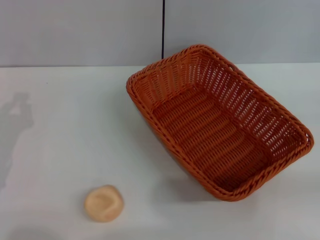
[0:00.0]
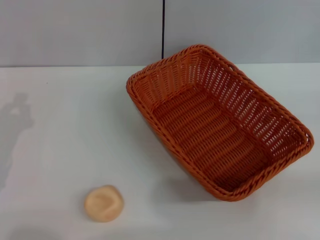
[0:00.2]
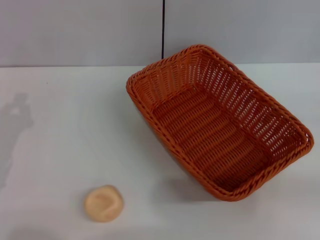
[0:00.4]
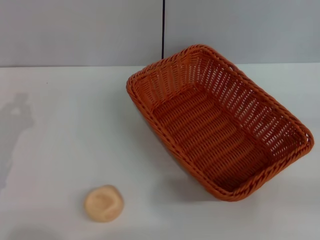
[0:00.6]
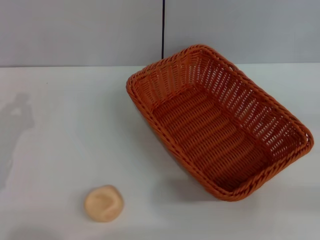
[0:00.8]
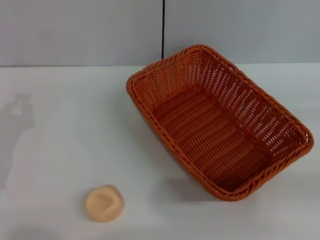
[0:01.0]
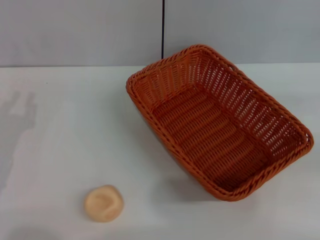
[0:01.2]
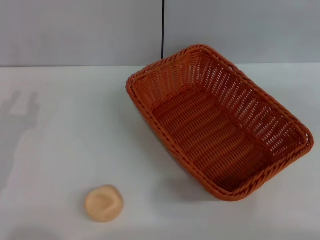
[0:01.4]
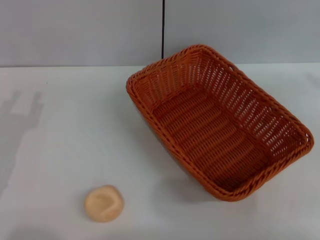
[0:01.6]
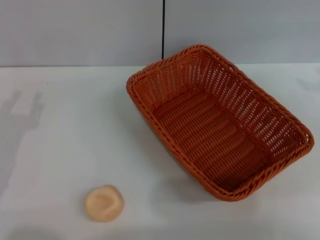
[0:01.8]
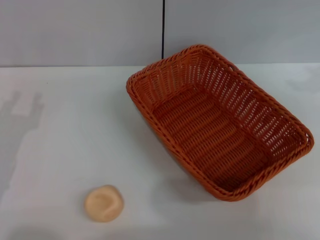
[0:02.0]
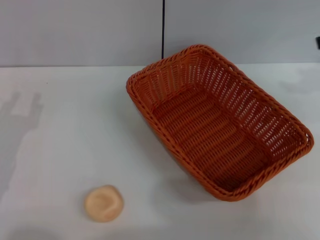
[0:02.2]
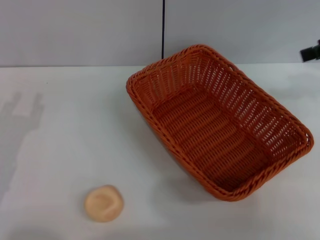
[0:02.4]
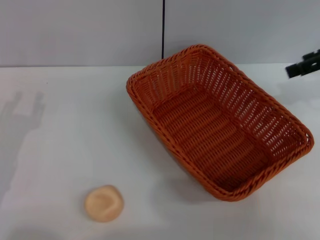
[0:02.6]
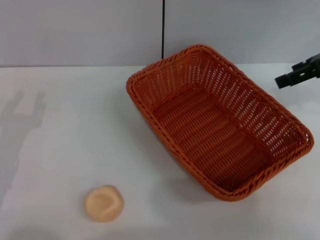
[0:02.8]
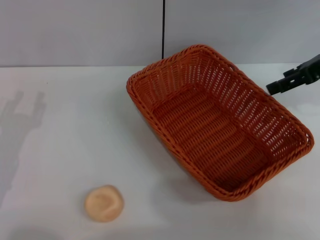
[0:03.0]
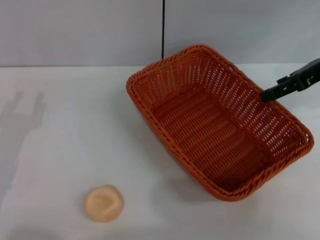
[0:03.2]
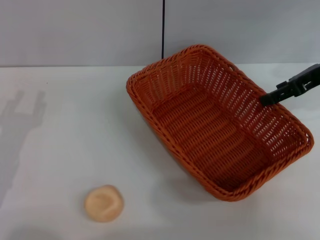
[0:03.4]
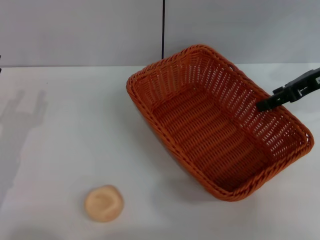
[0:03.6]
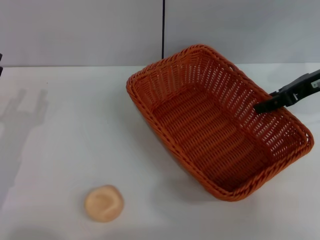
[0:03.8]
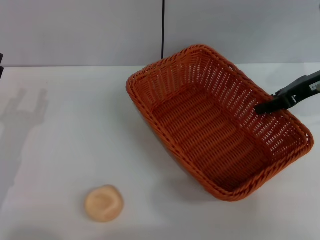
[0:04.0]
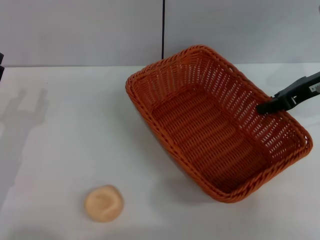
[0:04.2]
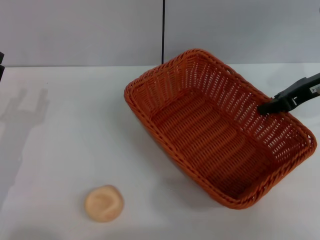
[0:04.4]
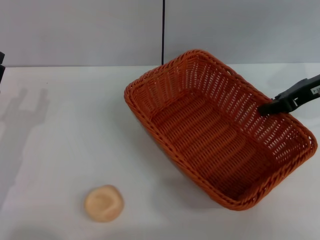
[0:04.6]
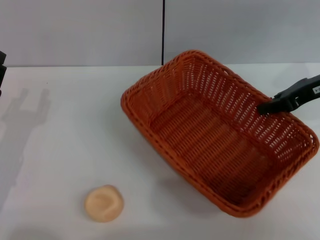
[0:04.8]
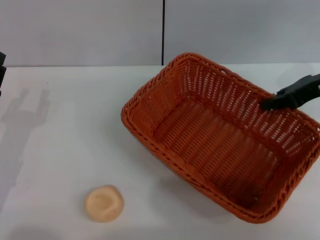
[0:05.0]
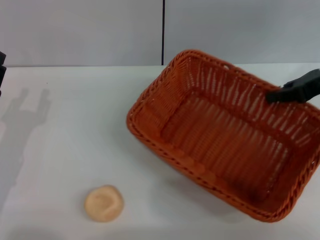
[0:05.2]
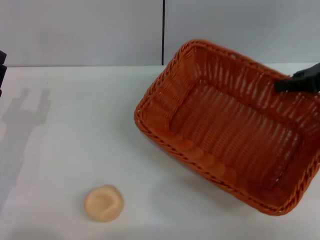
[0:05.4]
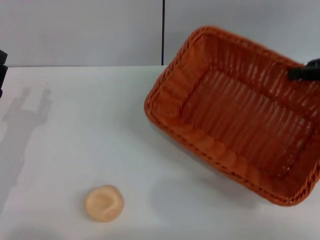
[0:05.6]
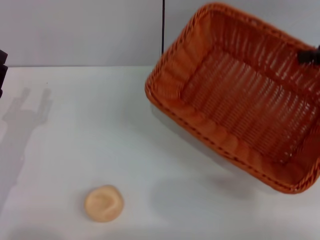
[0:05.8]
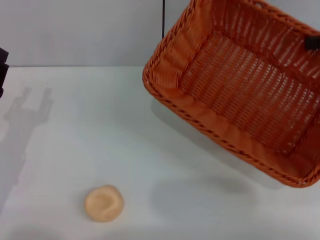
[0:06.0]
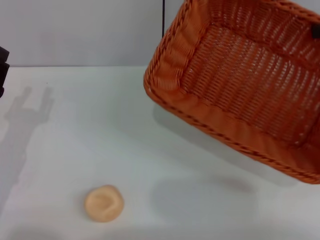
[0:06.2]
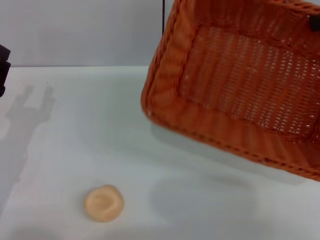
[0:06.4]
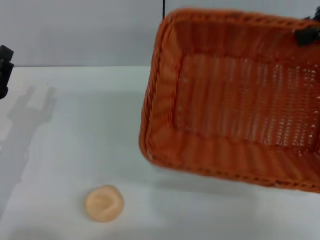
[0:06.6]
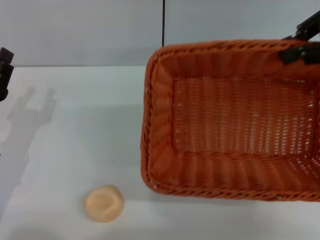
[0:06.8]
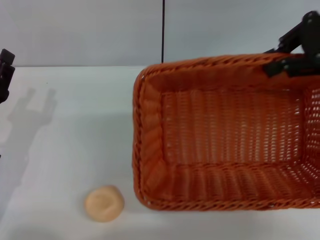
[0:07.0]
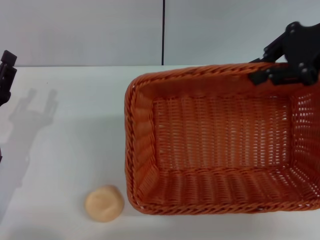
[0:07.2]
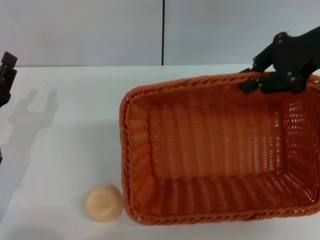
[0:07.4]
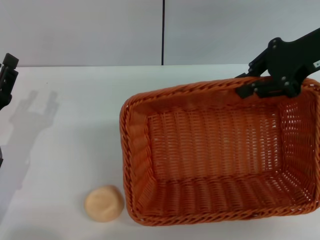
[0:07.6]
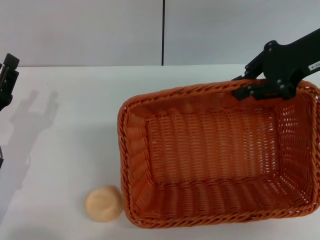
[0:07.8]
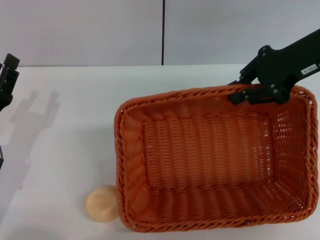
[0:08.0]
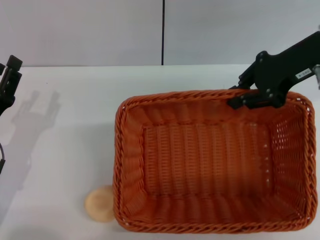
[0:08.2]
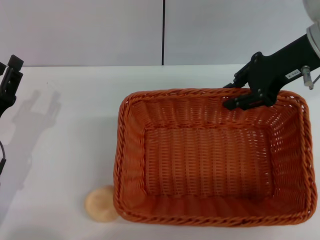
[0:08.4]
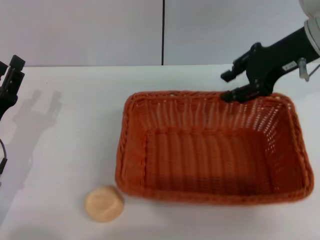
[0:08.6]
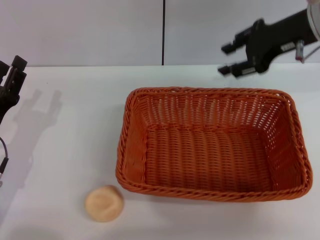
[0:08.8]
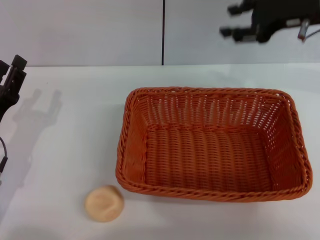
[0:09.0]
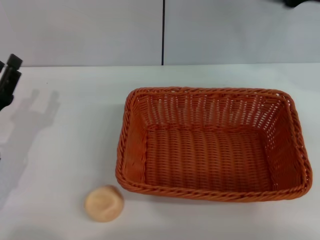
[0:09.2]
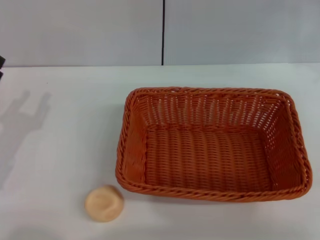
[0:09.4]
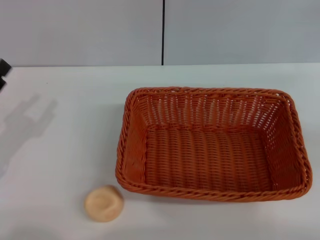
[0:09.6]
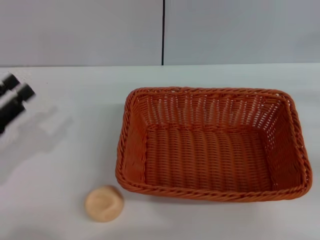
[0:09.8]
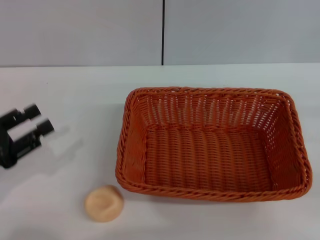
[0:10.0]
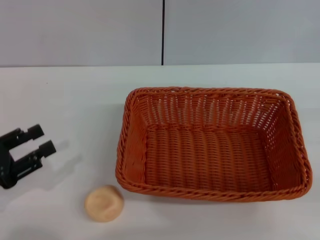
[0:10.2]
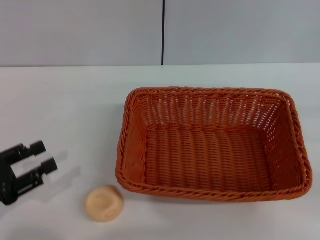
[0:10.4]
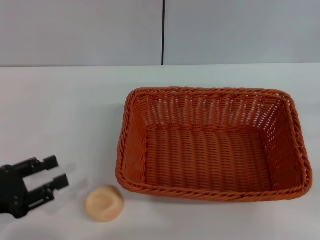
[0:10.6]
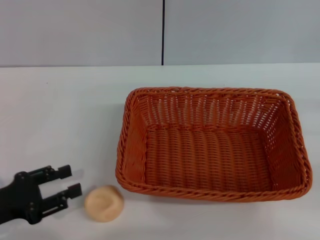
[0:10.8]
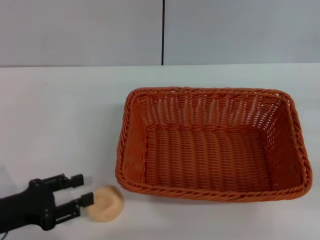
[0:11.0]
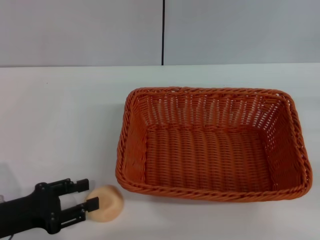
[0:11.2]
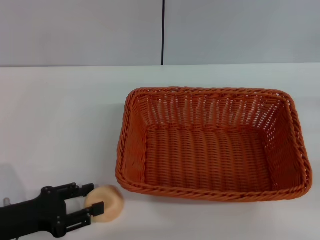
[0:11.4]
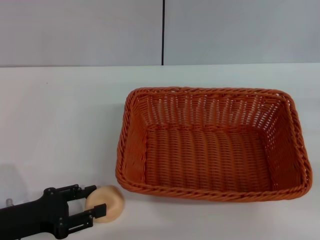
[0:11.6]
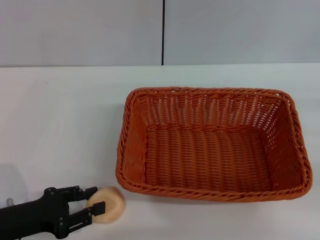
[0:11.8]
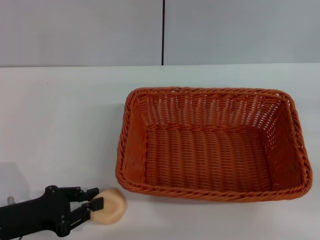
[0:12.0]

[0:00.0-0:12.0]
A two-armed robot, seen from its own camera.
Step, 0:00.0 to 0:08.6: Move the basket to the center of view with the right gripper.
0:01.6 to 0:03.0: The right gripper shifts roughly 15 cm to the left, forward and downward.
0:03.0 to 0:04.4: The right gripper closes its fingers.
0:04.4 to 0:06.0: The right gripper shifts approximately 10 cm to the right and upward.
0:06.0 to 0:07.6: The right gripper goes about 10 cm to the left.
0:07.6 to 0:09.0: The right gripper opens.
0:09.0 to 0:10.4: The left gripper heads to the left and backward, covering some 10 cm; the right gripper moves to the right, backward and downward, roughly 30 cm.
0:10.4 to 0:12.0: The left gripper is displaced to the right by some 5 cm.

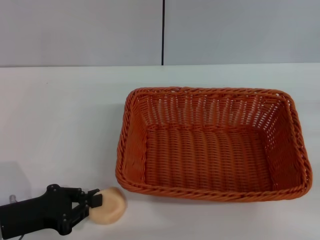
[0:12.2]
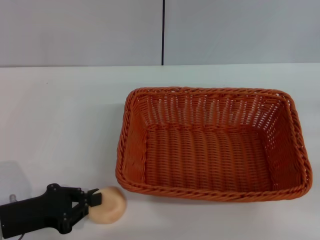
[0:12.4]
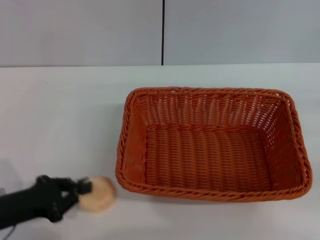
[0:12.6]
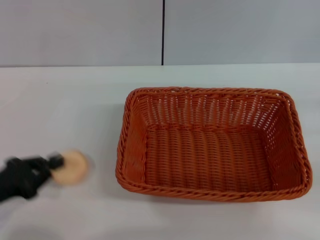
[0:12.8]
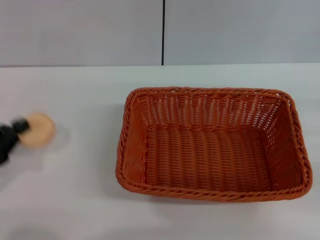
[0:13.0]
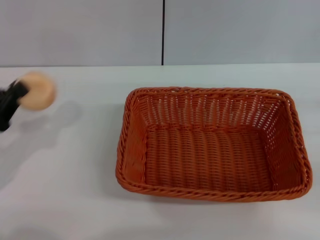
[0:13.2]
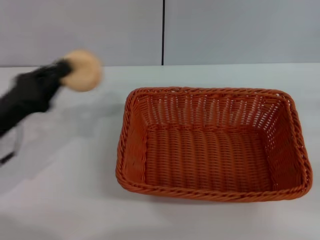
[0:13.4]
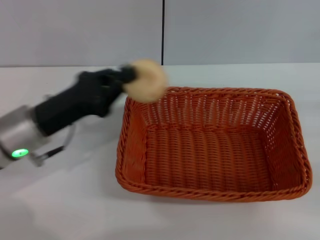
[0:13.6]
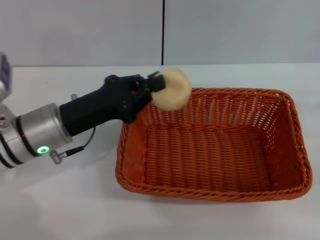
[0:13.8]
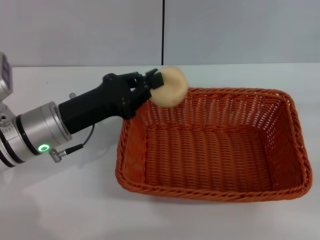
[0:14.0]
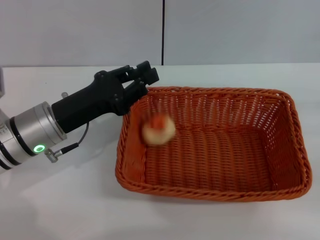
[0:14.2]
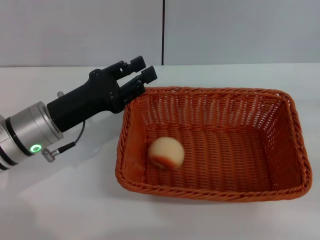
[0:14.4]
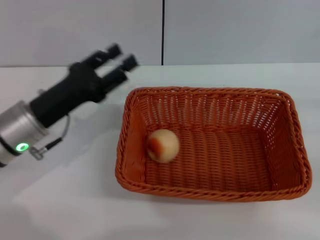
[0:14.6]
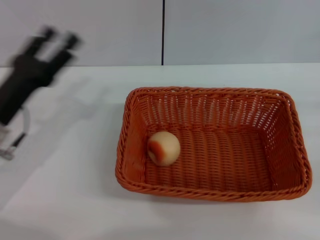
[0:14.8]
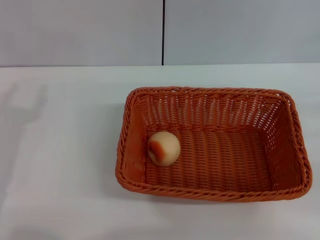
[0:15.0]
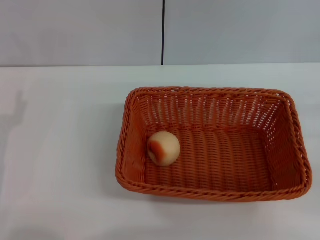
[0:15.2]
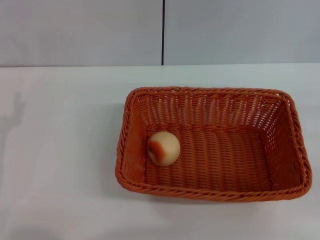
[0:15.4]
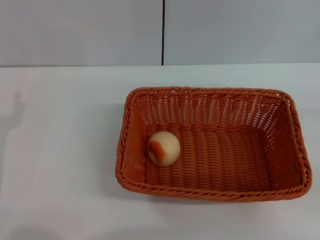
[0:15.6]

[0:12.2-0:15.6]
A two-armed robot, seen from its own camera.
Step, 0:13.4 to 0:14.2: Place the egg yolk pastry into the basket with the left gripper.
0:12.2 to 0:13.8: The left gripper is displaced forward, to the right and upward by some 15 cm.
0:13.8 to 0:15.6: The left gripper travels to the left and backward by approximately 15 cm, and opens up.

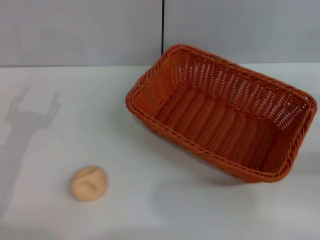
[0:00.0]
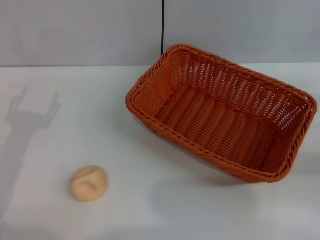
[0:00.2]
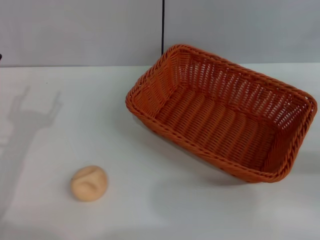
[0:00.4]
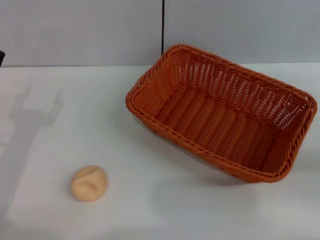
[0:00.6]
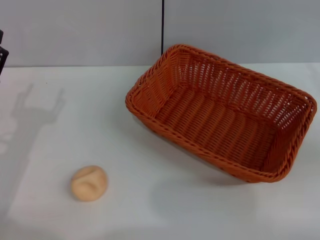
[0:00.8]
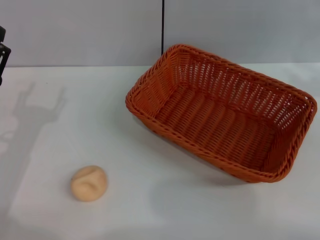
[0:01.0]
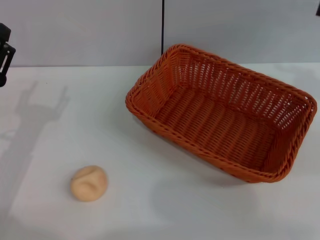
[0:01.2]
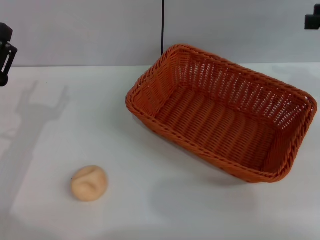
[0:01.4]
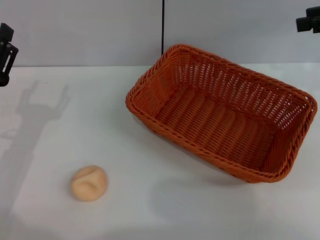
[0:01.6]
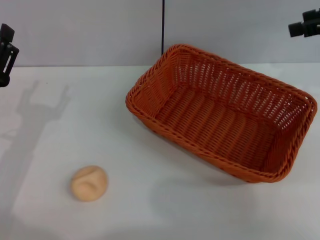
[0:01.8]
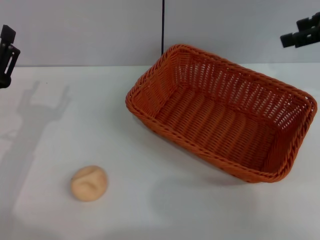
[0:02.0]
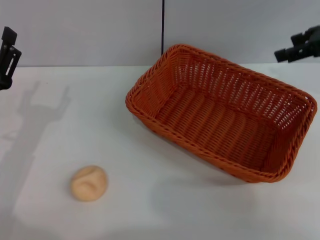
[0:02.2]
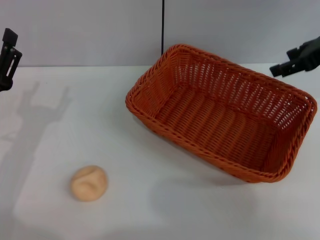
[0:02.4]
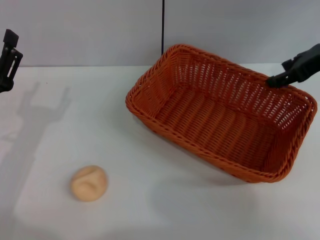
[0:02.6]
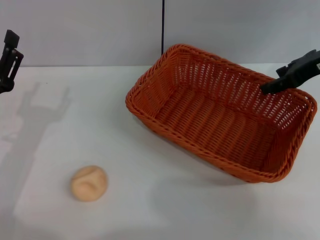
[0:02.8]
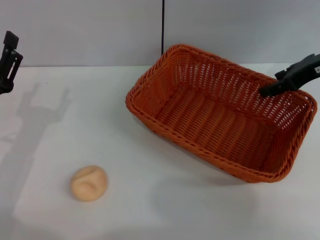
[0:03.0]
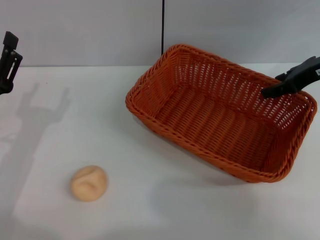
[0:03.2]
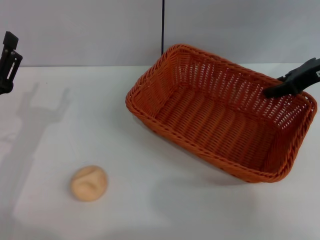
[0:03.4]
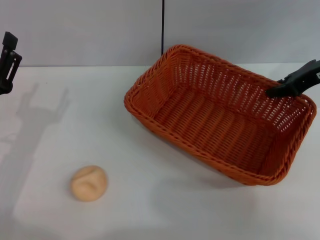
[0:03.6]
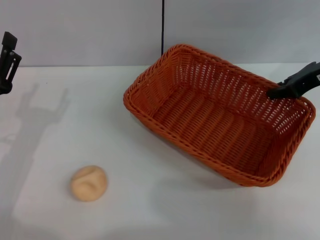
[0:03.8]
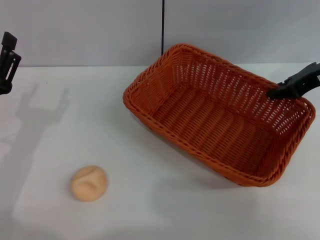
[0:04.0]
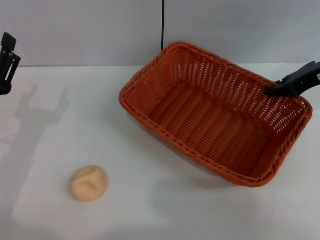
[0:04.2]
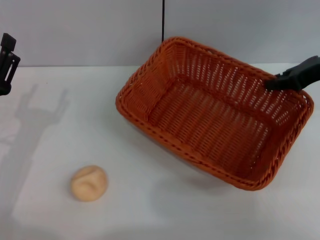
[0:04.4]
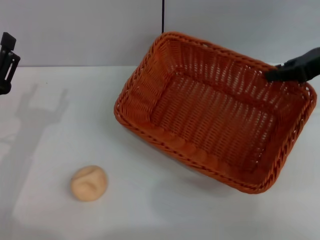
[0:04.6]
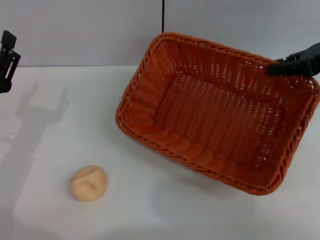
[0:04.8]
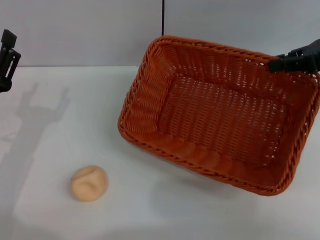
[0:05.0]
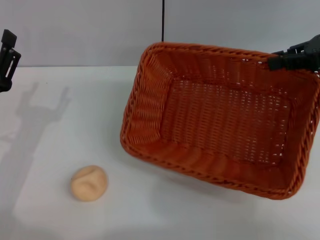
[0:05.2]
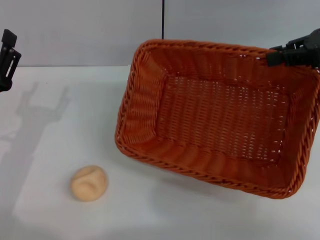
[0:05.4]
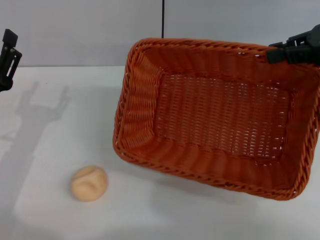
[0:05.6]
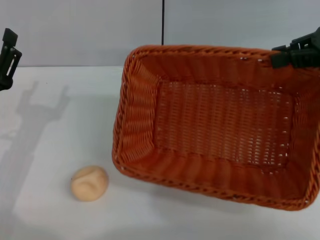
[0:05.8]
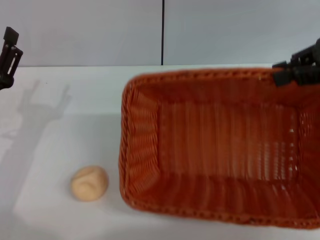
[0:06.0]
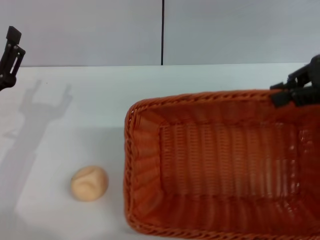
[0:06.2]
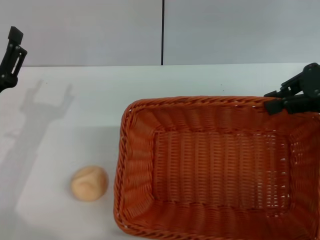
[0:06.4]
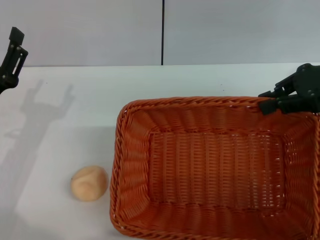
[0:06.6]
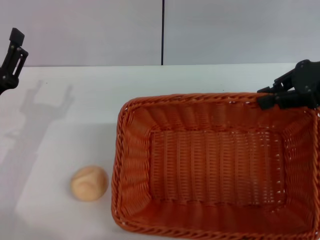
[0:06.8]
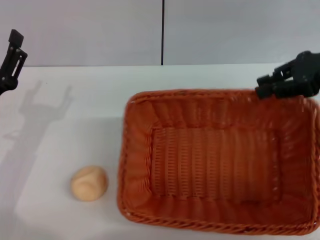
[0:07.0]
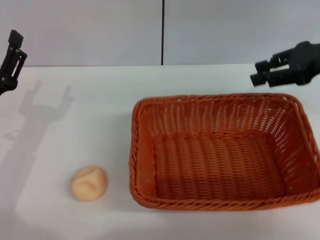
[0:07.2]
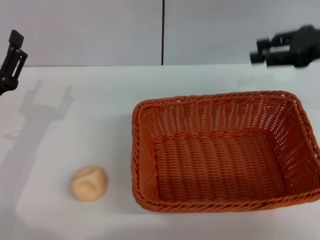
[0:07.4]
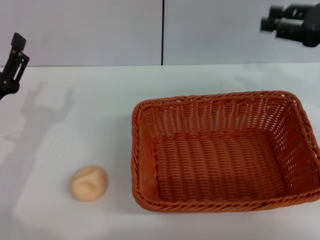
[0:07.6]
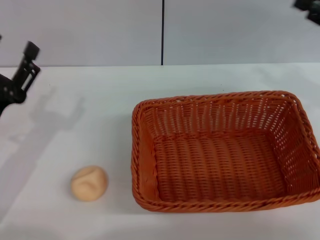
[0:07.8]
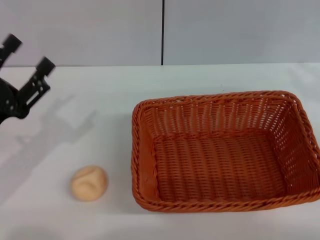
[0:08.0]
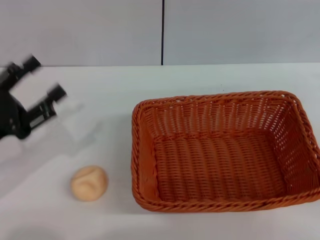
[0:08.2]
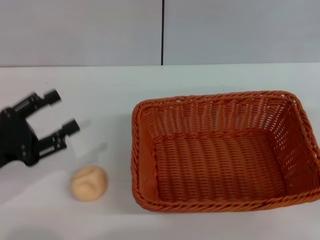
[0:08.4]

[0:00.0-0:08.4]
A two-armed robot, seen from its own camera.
Step, 0:00.0 to 0:07.0: Move the basket to the center of view with the right gripper.
0:00.0 to 0:01.4: The right gripper goes about 20 cm upward and forward.
0:01.4 to 0:02.8: The right gripper moves to the left and downward, some 10 cm, and opens its fingers.
0:02.8 to 0:04.2: The right gripper closes.
0:04.2 to 0:05.6: The right gripper moves upward, some 5 cm.
0:07.0 to 0:08.4: The left gripper shifts by some 5 cm; the right gripper moves backward, downward and to the right, roughly 20 cm, and opens up.
